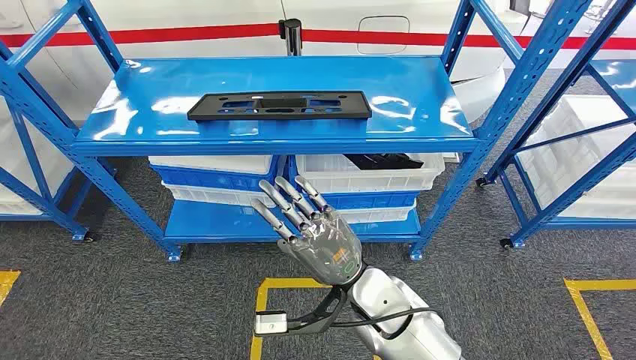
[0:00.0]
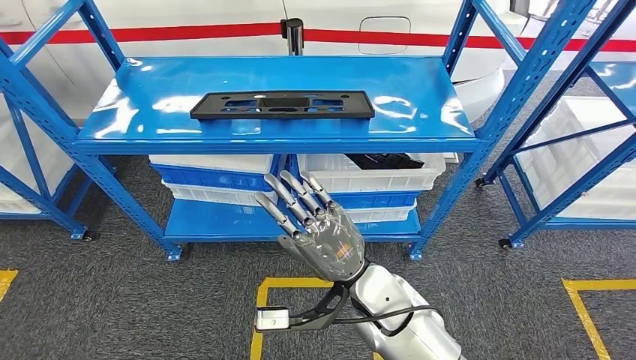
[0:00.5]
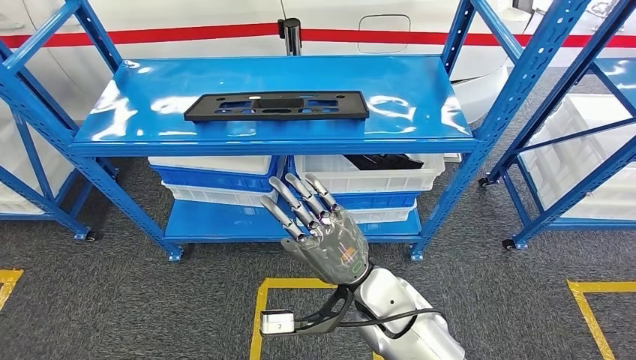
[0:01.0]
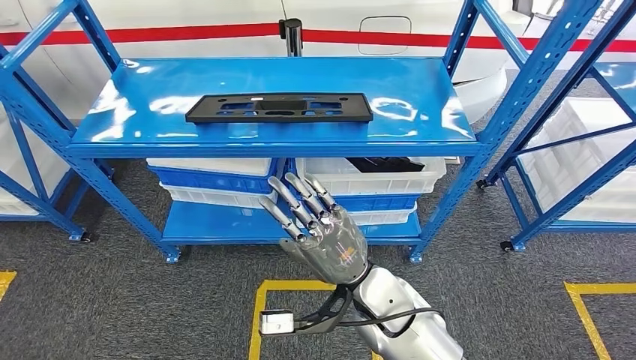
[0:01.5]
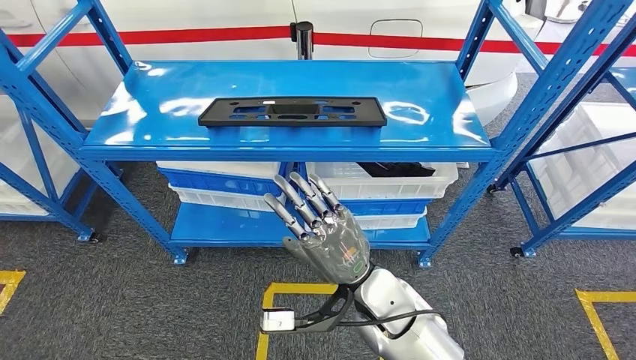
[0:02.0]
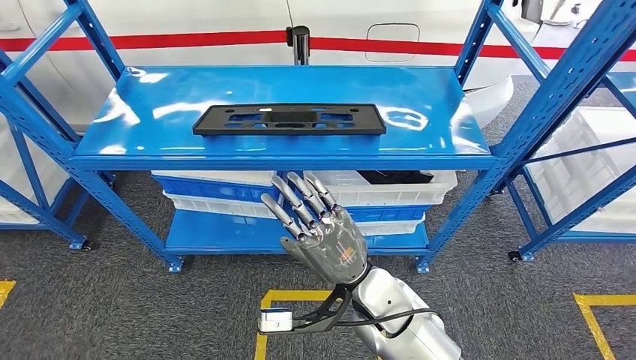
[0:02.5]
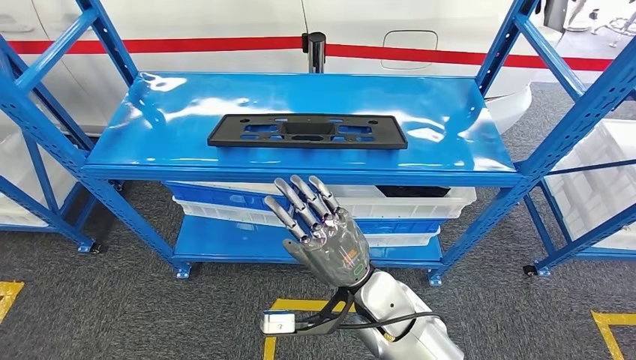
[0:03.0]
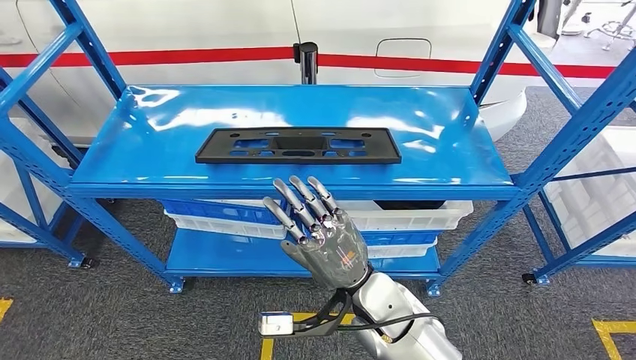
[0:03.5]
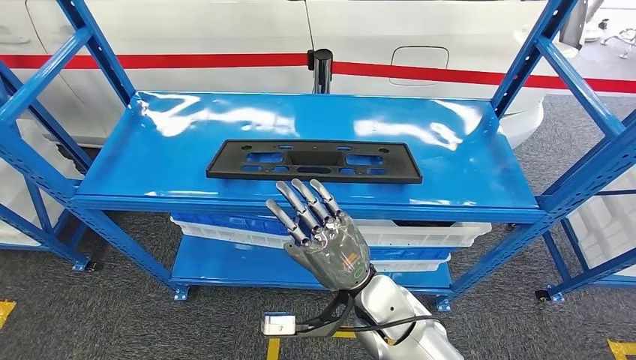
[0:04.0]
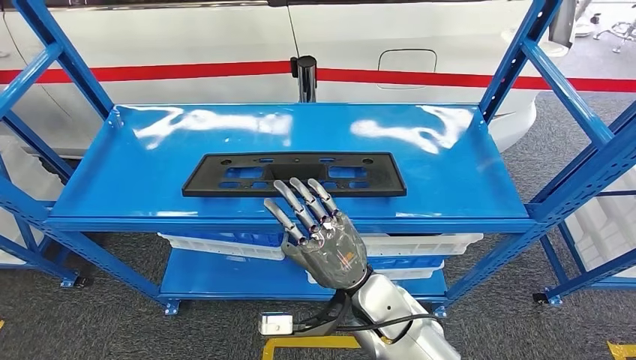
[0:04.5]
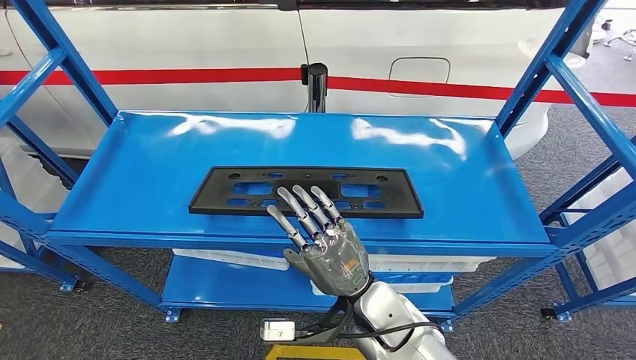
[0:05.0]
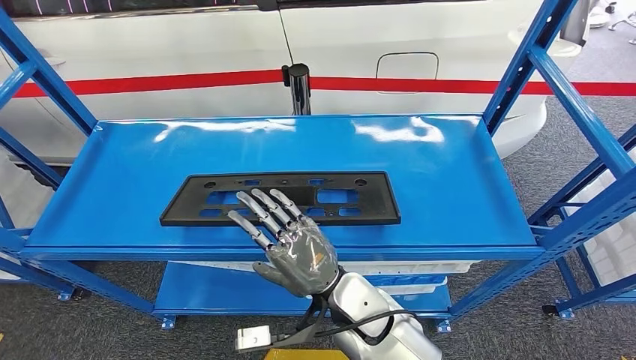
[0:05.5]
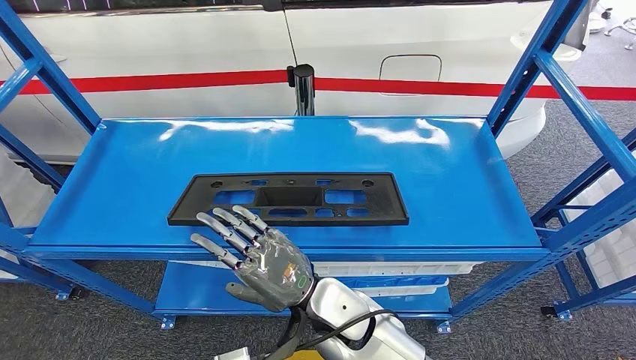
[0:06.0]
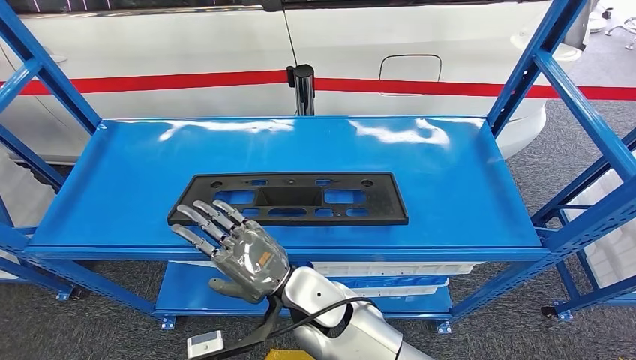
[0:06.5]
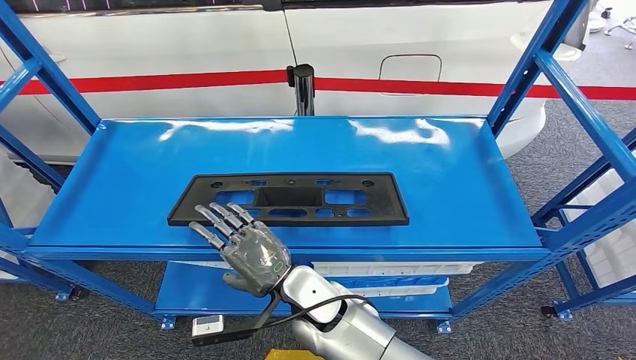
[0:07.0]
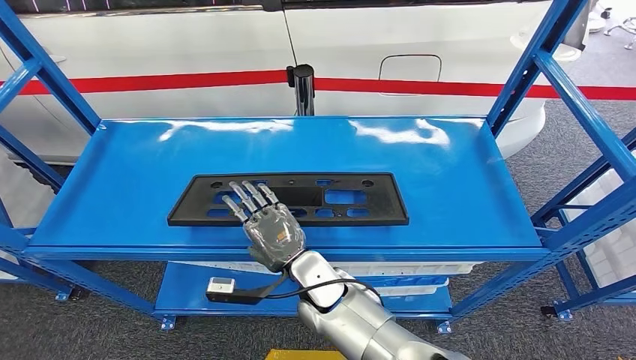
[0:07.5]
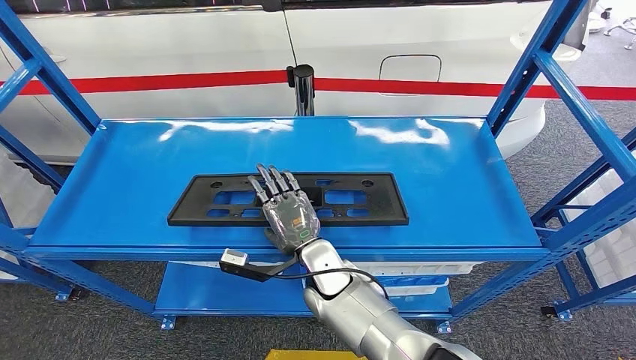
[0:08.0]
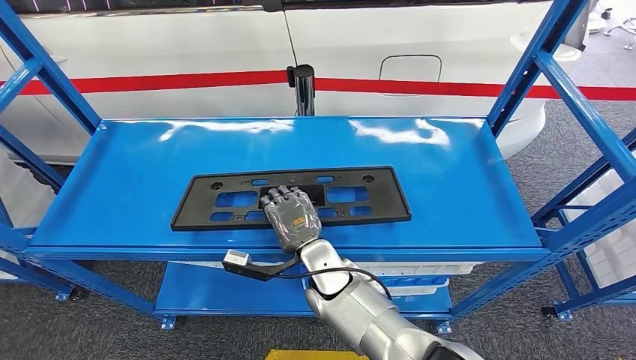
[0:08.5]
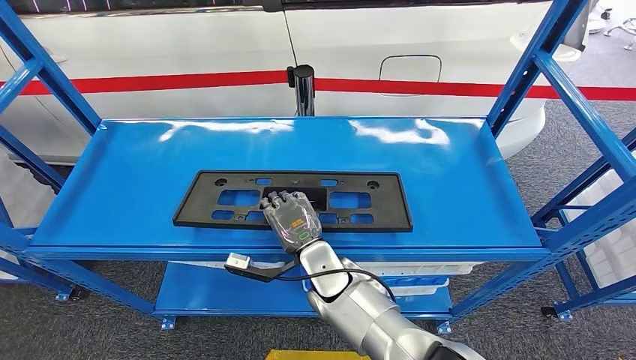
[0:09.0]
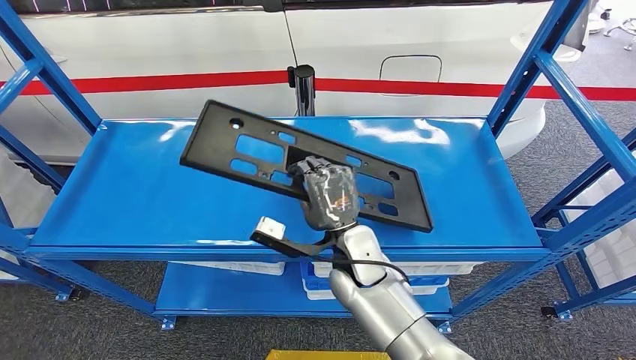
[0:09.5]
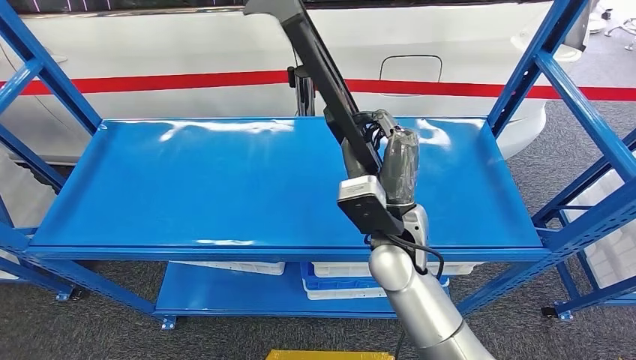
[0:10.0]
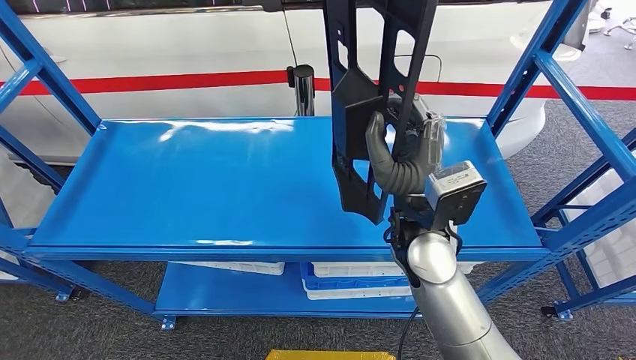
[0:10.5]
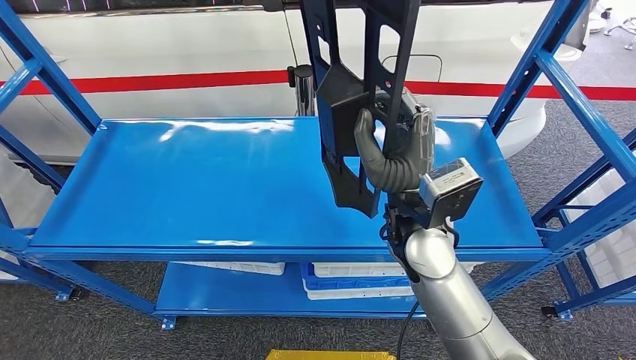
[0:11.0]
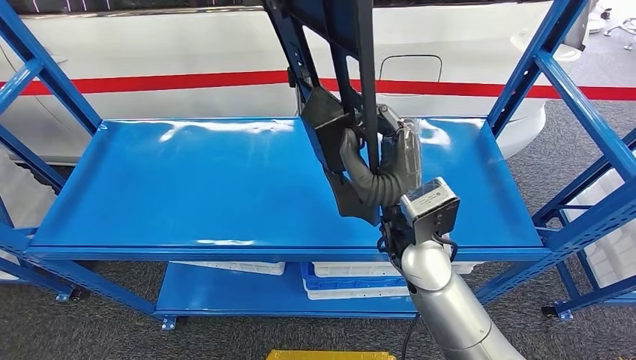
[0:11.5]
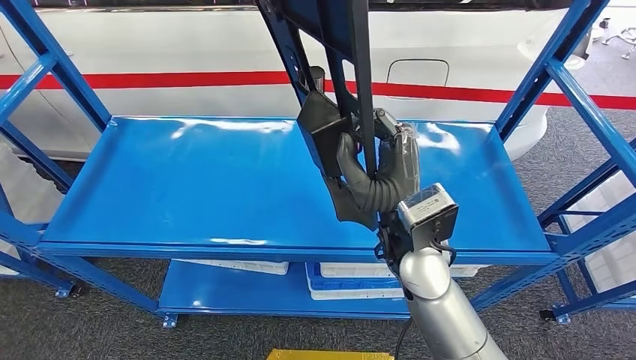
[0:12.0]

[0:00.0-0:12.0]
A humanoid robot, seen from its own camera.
0:06.0 to 0:08.0: The right hand travels forward by approximately 10 cm.
0:08.0 to 0:10.0: The right hand is displaced upward and to the right by roughly 15 cm.

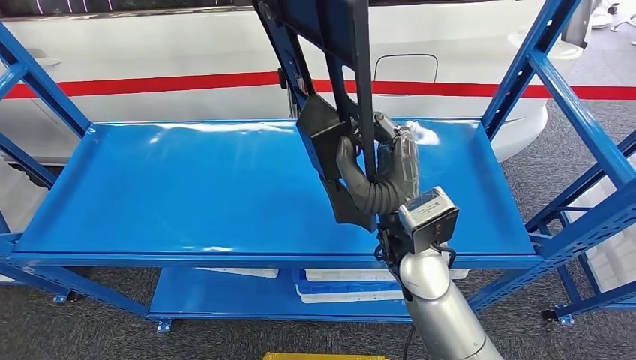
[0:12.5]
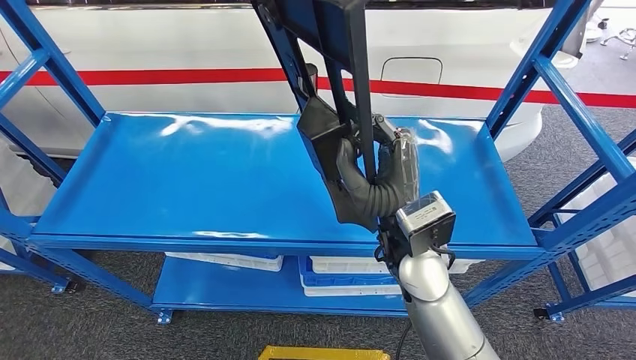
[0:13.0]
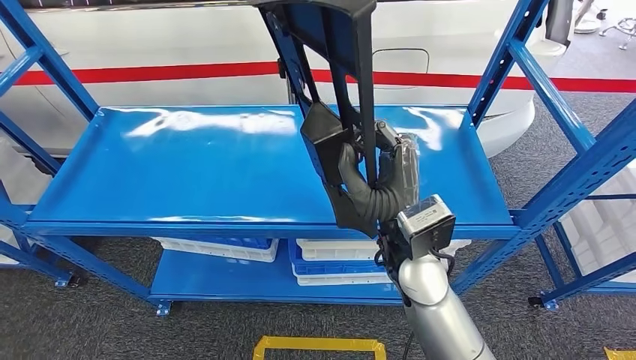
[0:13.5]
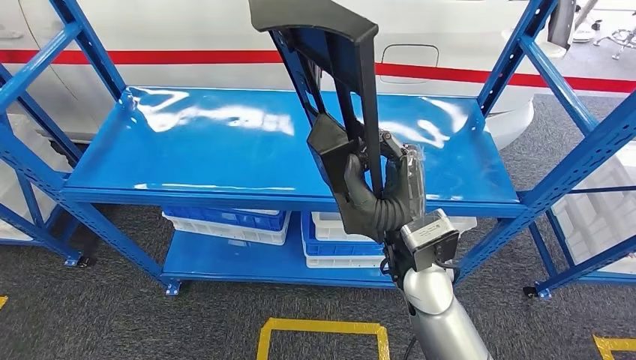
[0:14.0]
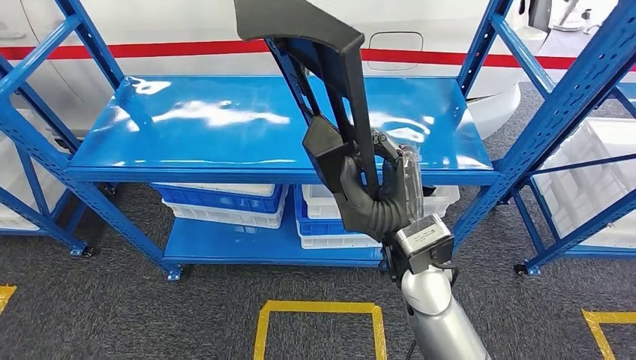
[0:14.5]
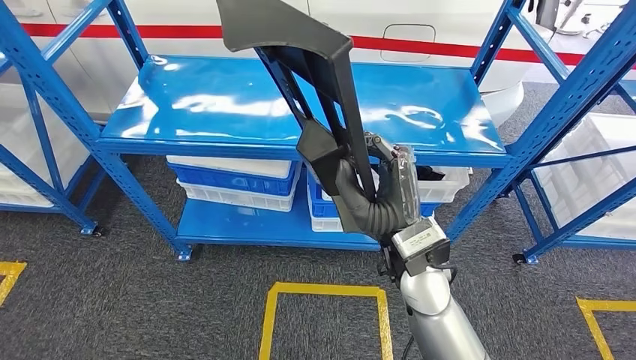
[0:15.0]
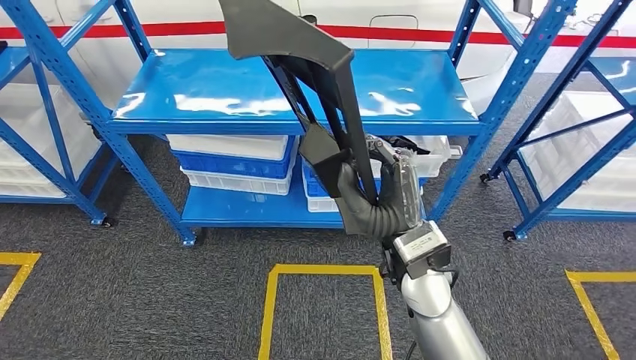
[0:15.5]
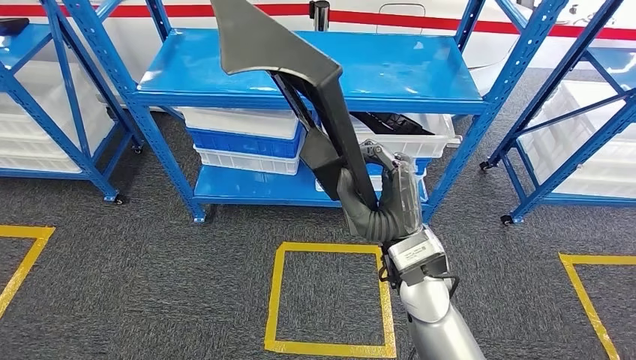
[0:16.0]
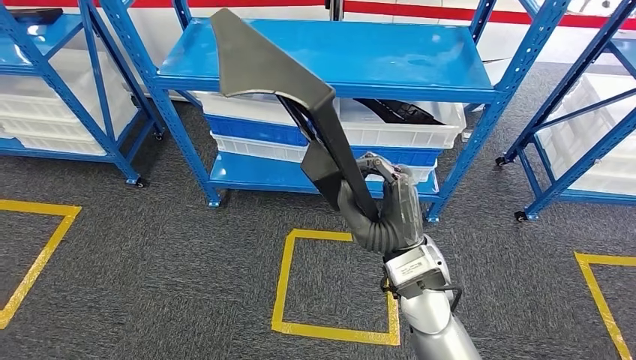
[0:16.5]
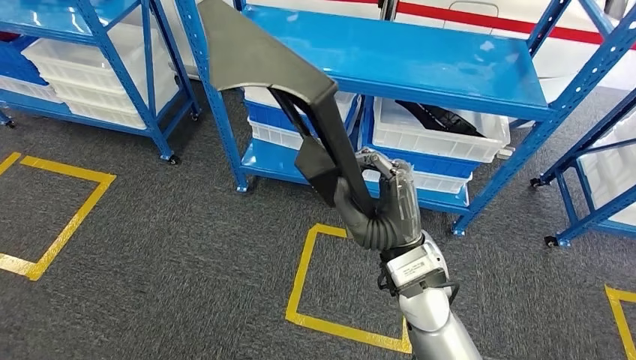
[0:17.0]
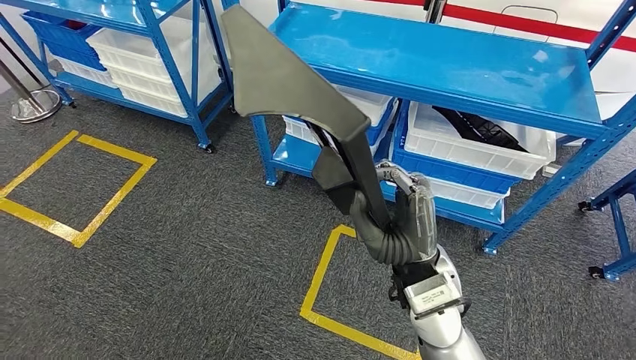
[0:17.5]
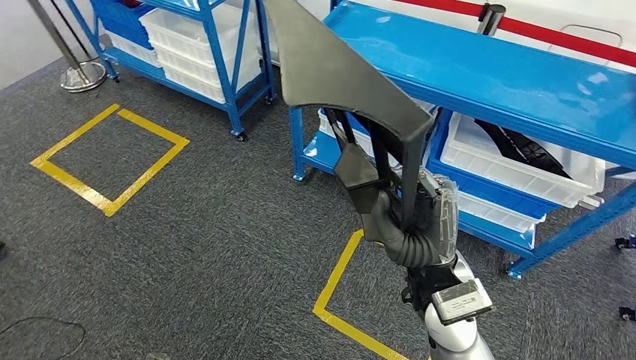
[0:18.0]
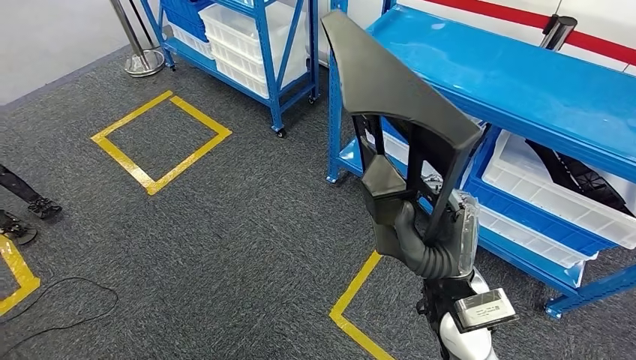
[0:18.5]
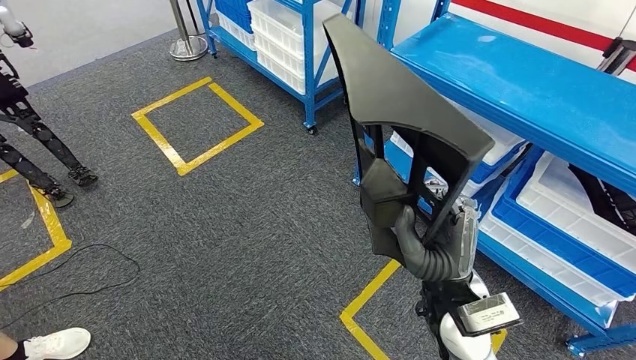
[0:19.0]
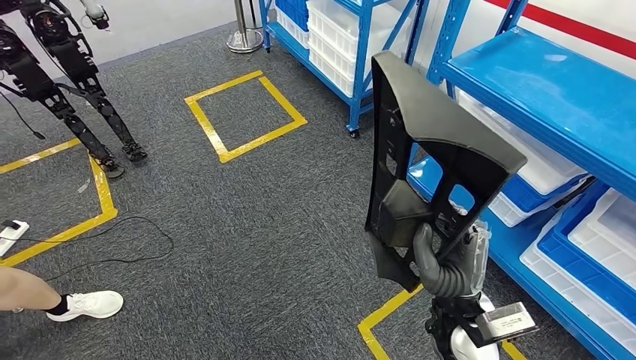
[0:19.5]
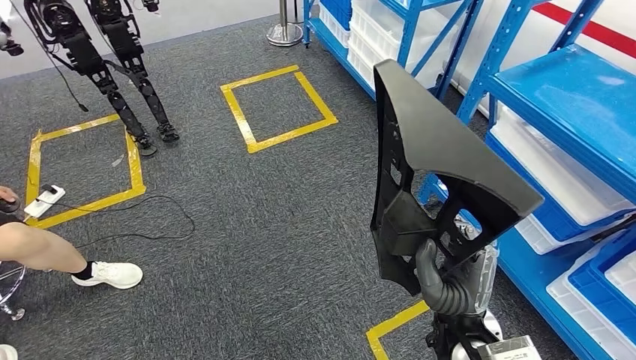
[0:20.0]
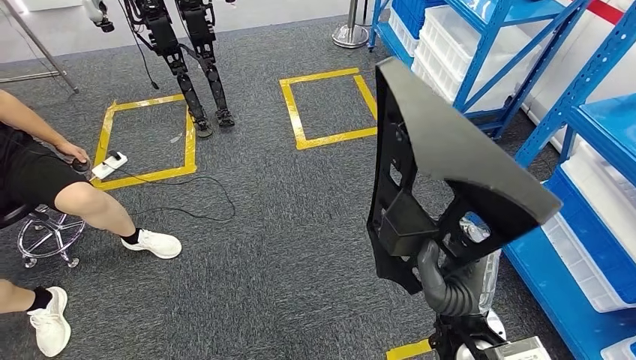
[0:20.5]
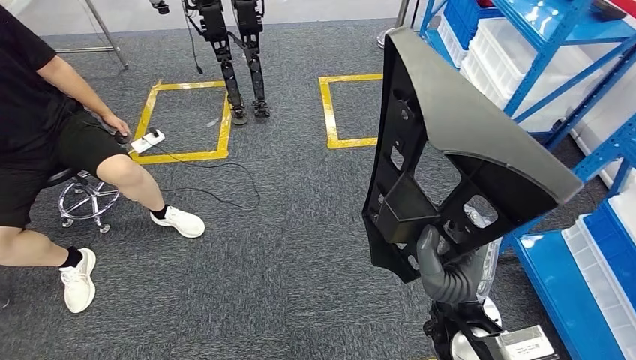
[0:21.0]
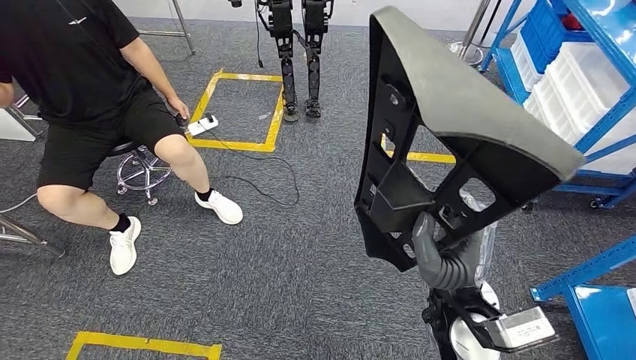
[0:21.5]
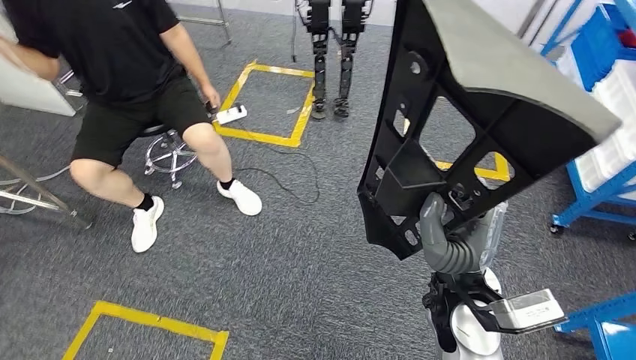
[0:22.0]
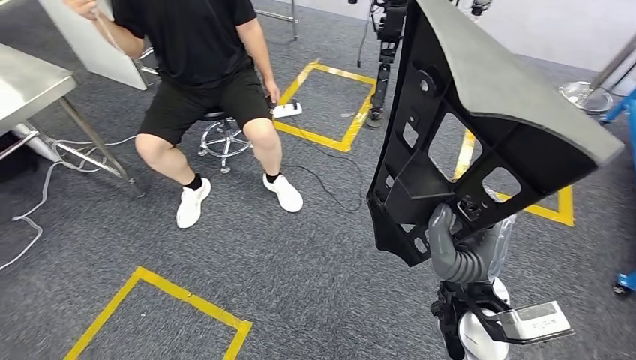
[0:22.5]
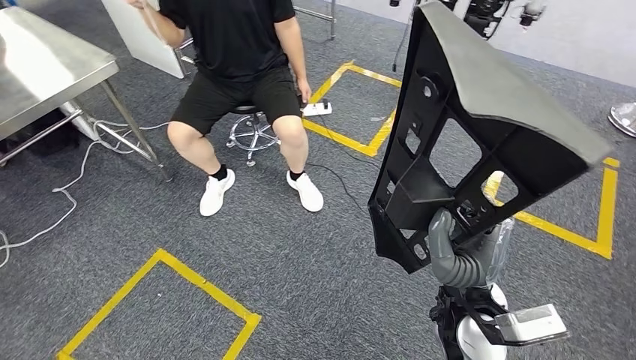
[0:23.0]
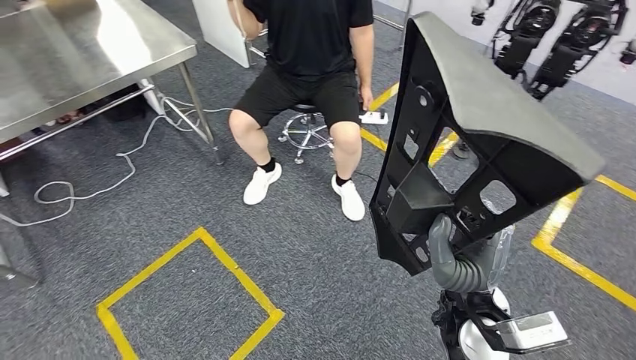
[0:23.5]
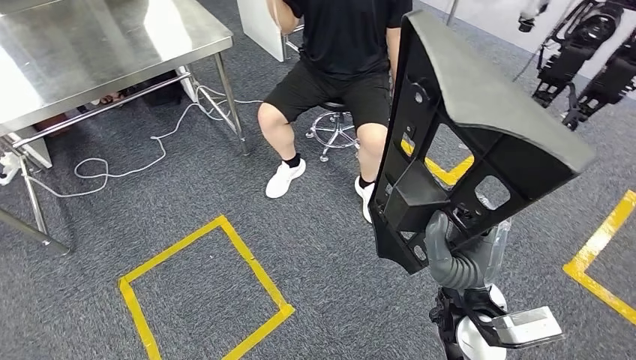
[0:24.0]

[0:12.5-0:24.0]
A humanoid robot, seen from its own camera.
Step, 0:12.5 to 0:14.5: Pick up the large material from the shelf.
